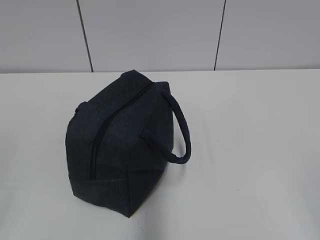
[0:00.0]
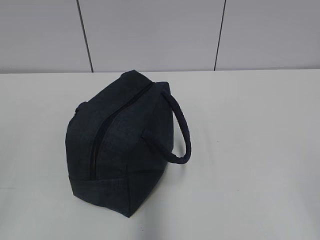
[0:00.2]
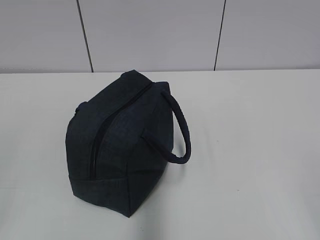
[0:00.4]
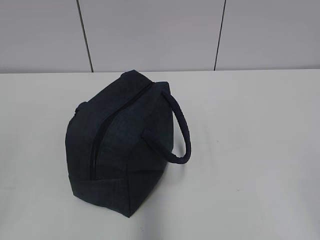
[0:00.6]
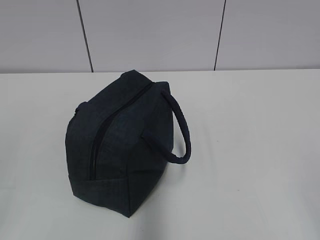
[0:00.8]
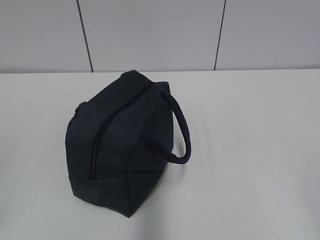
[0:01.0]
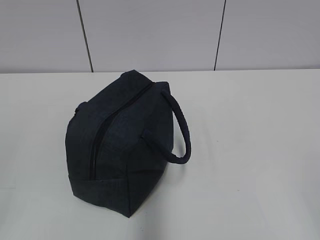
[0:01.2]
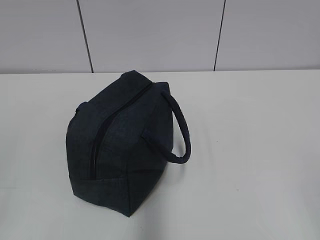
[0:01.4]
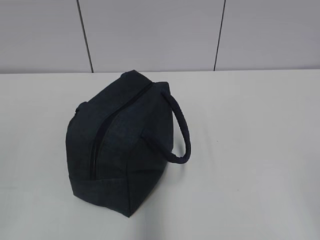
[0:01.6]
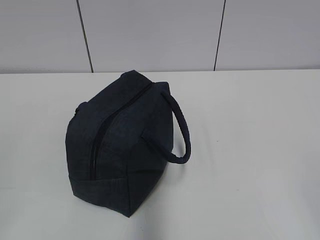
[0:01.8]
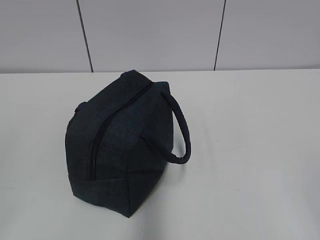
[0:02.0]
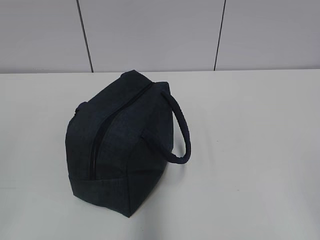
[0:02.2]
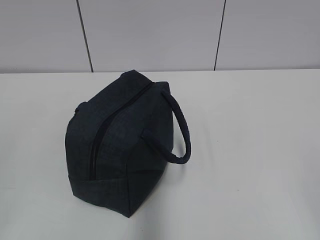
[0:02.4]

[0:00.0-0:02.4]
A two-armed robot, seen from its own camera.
0:00.0 to 0:01.2: Neither gripper changes place.
